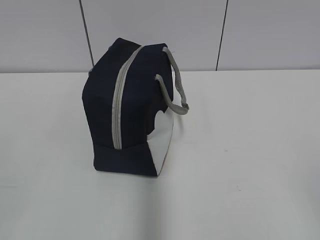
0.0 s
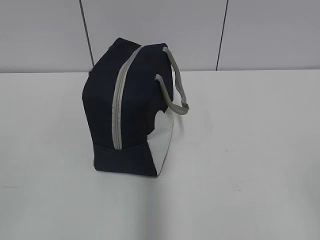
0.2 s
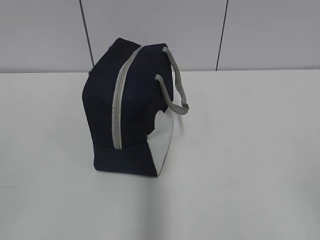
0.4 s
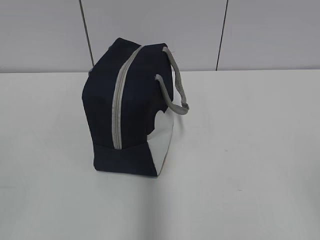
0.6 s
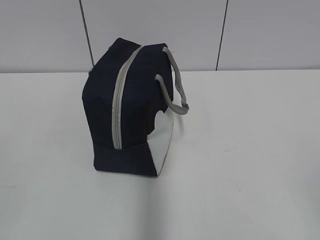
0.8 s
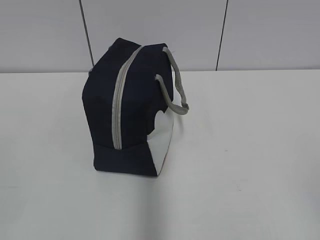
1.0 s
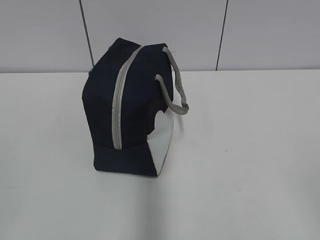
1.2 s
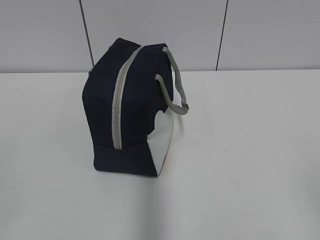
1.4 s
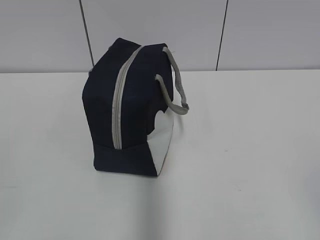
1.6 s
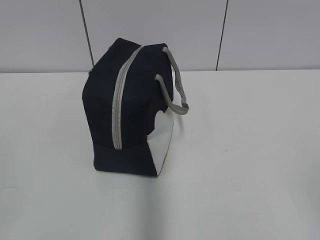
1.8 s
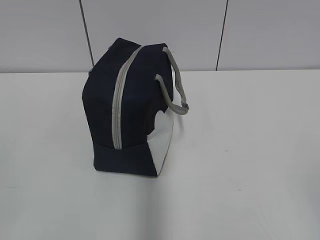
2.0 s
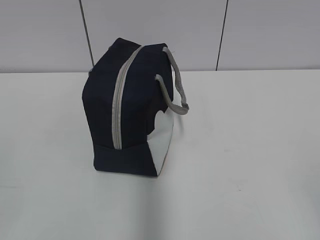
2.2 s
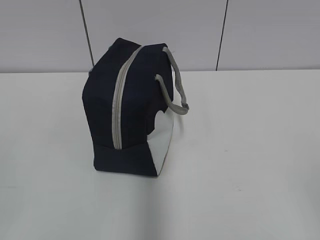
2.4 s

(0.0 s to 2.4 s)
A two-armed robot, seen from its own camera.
1.2 s - 2.4 s: The two grippers keep their place.

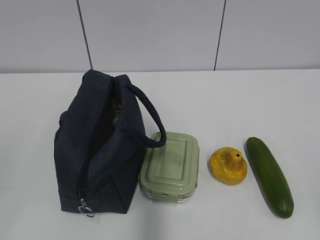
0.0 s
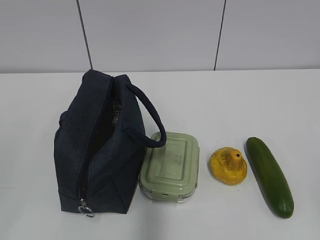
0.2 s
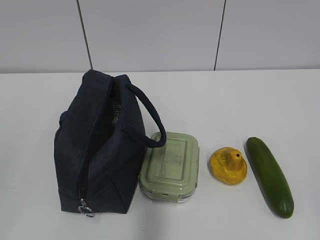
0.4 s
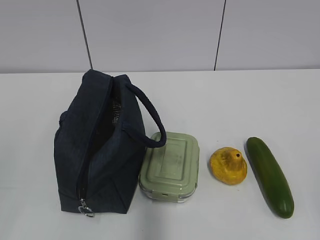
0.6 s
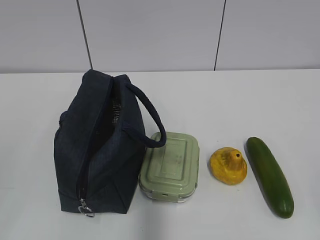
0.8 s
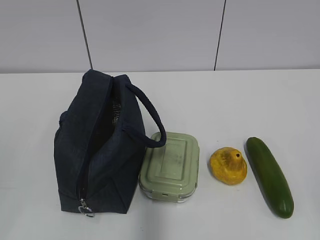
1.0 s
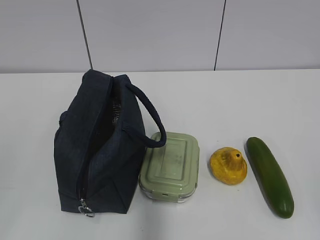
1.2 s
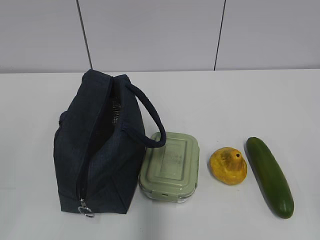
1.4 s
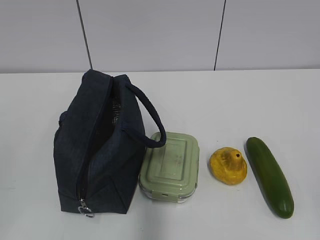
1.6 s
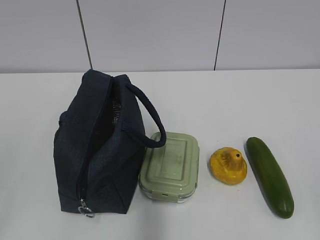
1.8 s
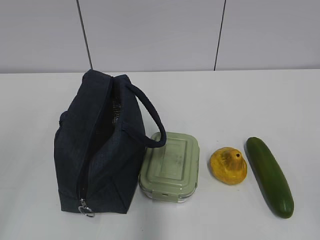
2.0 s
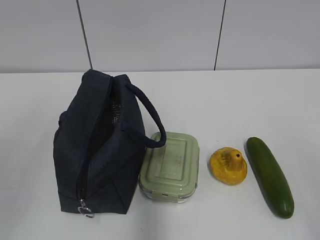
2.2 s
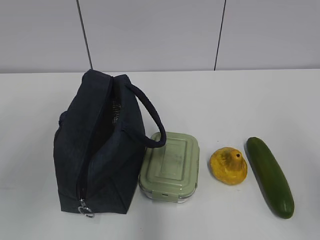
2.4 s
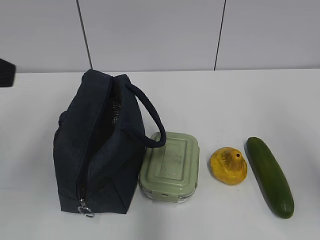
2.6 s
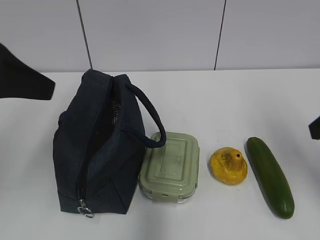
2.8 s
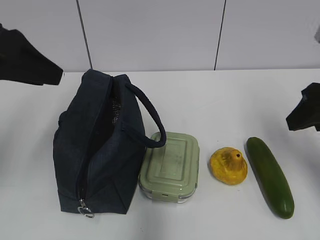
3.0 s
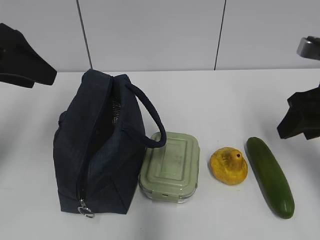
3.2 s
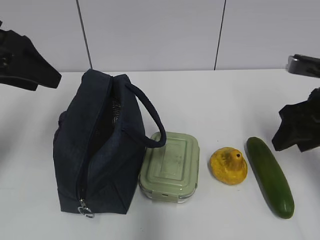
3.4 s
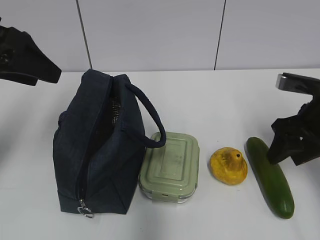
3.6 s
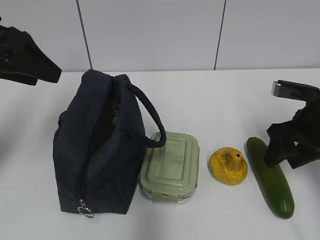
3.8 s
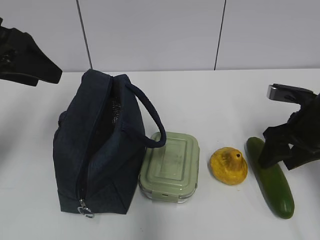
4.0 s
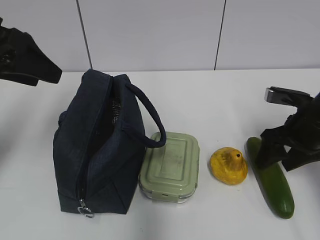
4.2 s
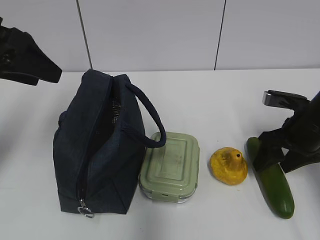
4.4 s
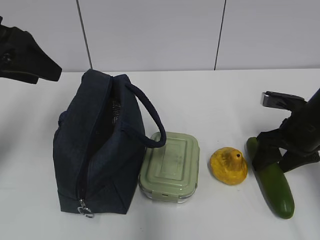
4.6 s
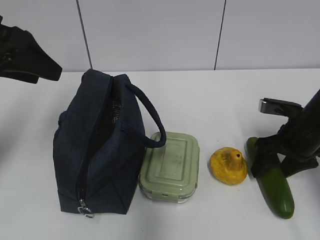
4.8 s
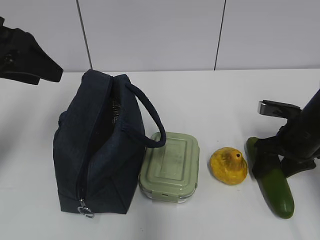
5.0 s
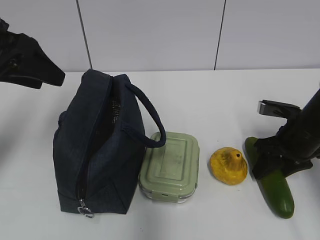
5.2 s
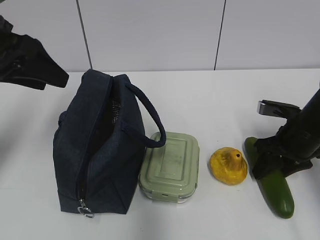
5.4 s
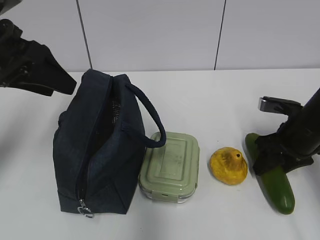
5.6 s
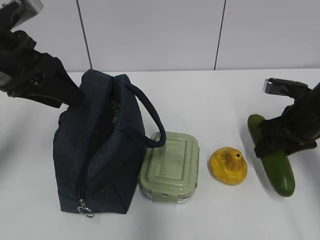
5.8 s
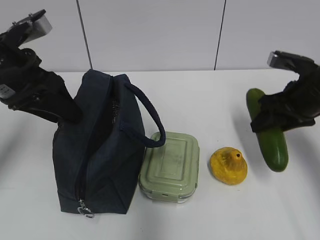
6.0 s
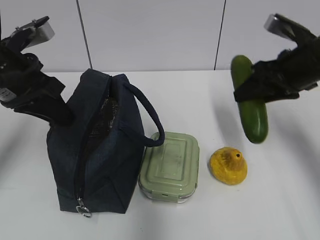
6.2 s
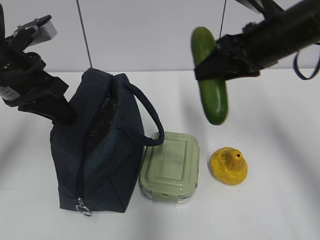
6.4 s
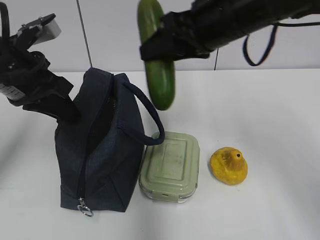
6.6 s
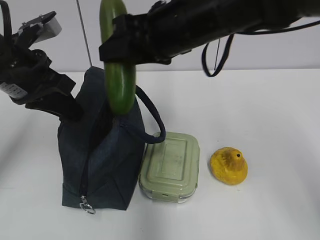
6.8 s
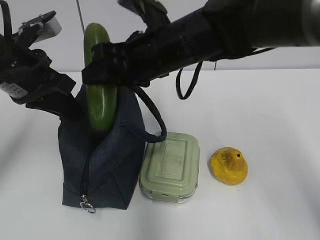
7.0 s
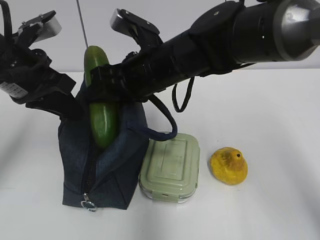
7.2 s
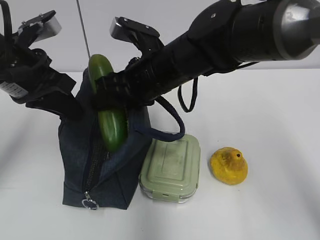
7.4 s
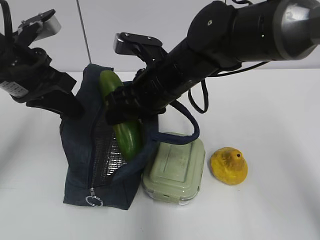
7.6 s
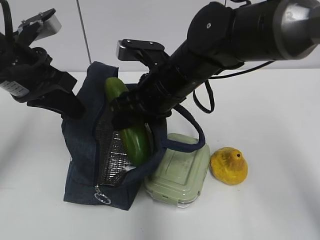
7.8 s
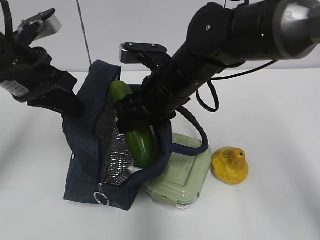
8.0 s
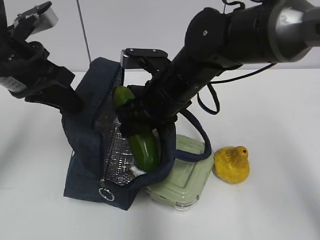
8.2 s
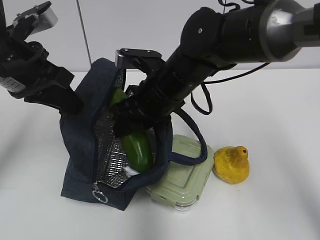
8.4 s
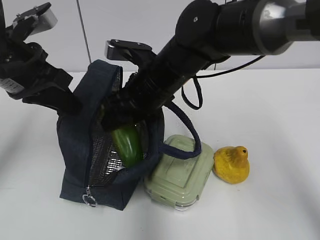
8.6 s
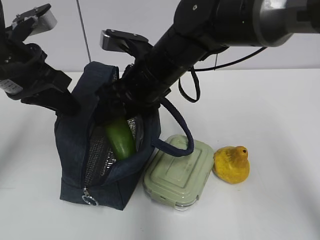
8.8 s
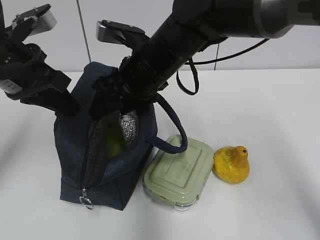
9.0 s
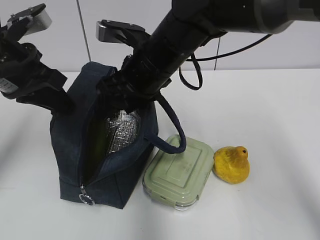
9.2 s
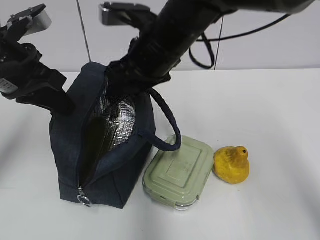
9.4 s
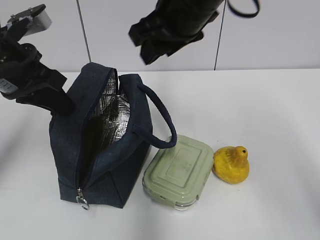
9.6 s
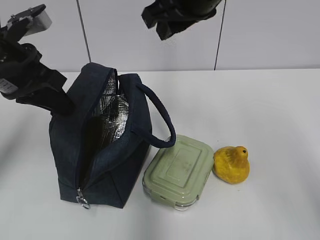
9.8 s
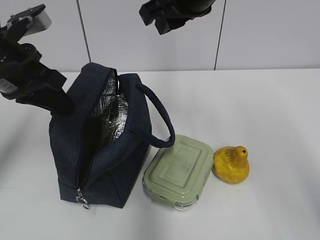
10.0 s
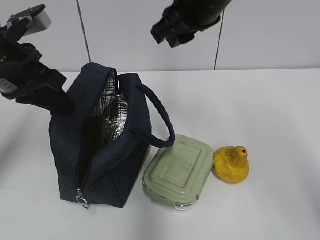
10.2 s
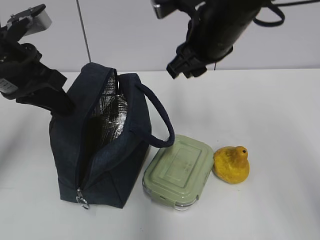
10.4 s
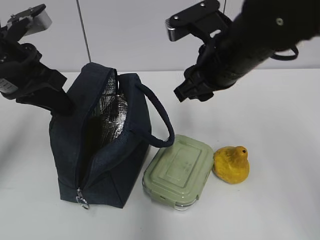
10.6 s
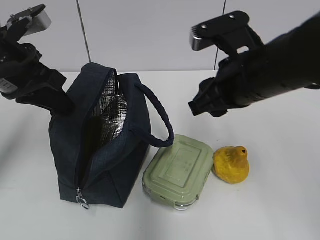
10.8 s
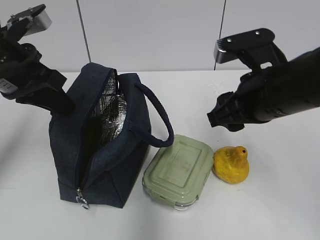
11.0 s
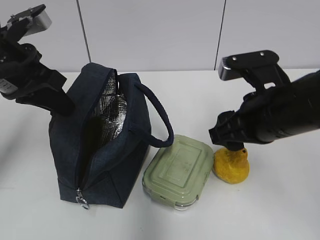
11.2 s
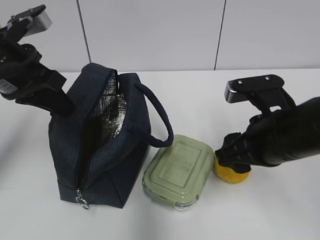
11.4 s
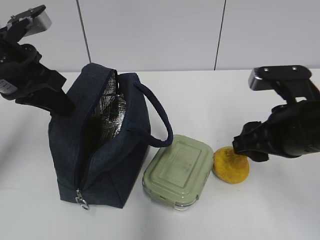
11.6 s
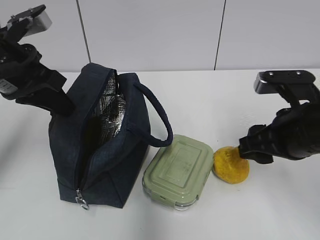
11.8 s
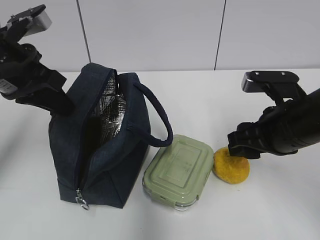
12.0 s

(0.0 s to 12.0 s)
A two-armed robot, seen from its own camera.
Step, 0.0 s - 5.0 s: Grab the cucumber with your right hand.
Step, 5.2 s - 6.8 s: Grab the lunch bag with your left hand.
Step, 7.0 s - 9.2 s: Place it into the bag with your right hand.
1.6 s - 3.0 s: The two grippers go some 25 cm forward.
3.0 s - 4.4 s: The right gripper goes about 15 cm downward and forward.
4.4 s - 6.0 s: The right gripper goes roughly 5 cm upward. The left gripper ends up approximately 5 cm from where it was.
6.0 s - 7.6 s: The right gripper moves to the left, roughly 25 cm; the left gripper closes.
9.0 s - 10.4 s: The right gripper heads to the right, covering approximately 10 cm, and closes its fingers.
10.4 s - 12.0 s: The right gripper goes approximately 15 cm downward, to the right and backward.

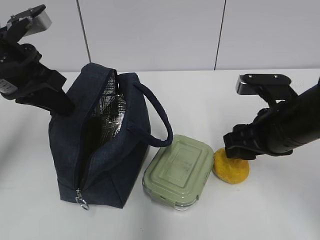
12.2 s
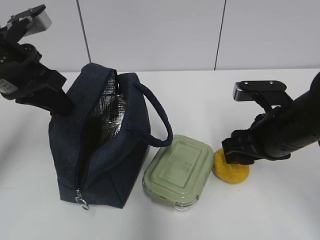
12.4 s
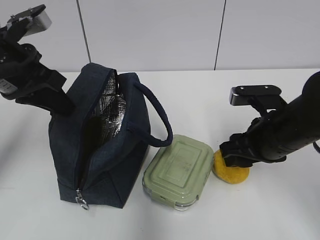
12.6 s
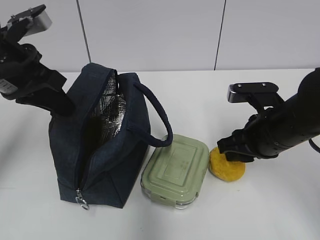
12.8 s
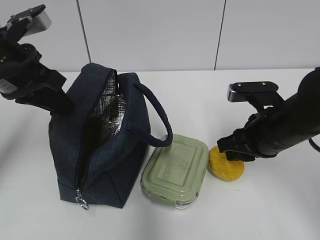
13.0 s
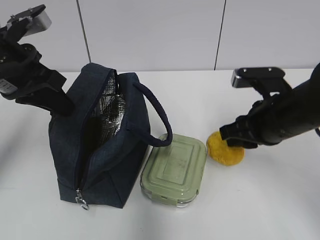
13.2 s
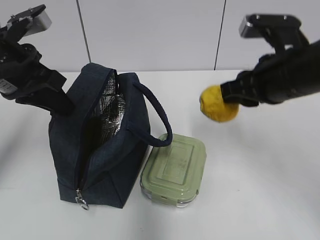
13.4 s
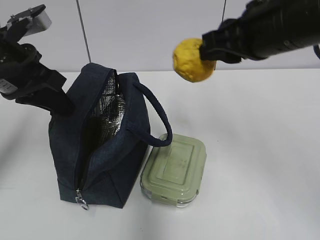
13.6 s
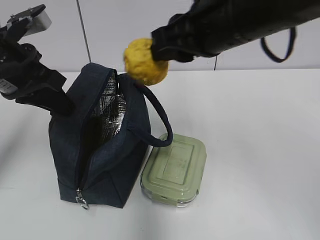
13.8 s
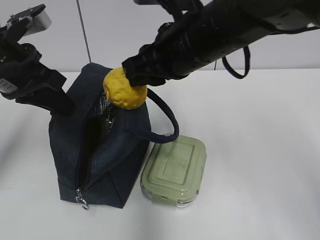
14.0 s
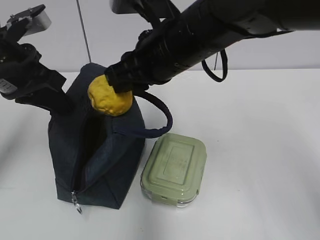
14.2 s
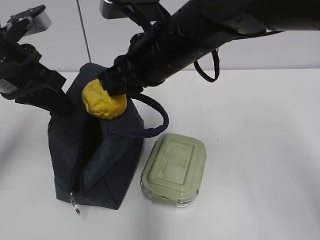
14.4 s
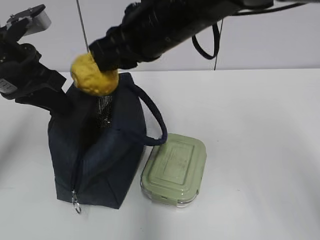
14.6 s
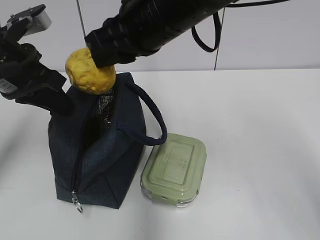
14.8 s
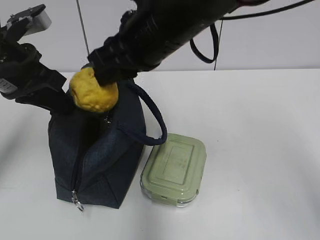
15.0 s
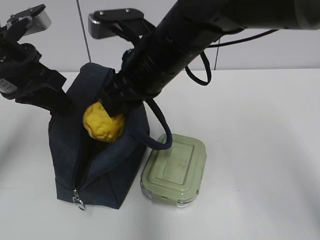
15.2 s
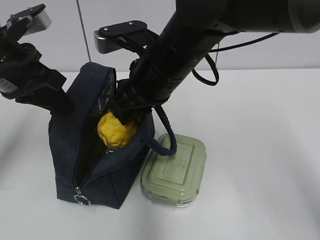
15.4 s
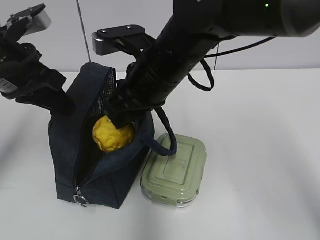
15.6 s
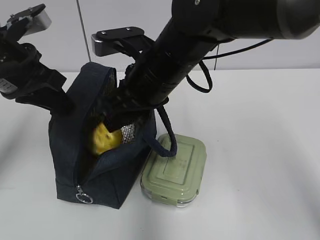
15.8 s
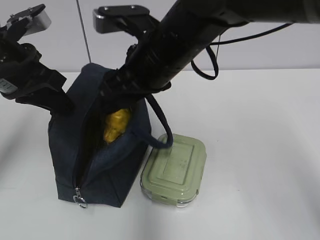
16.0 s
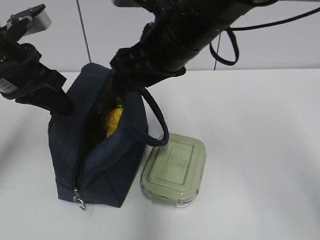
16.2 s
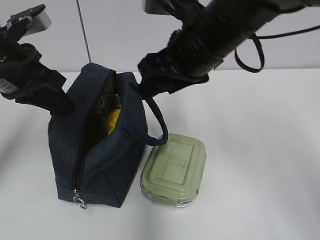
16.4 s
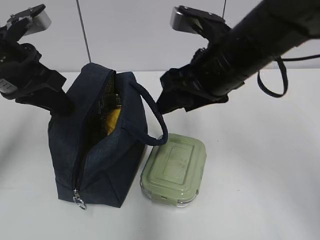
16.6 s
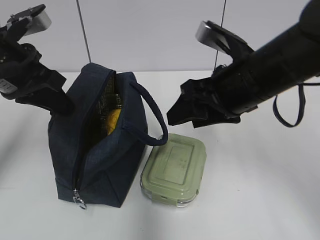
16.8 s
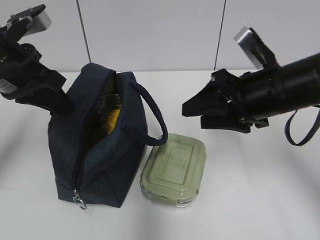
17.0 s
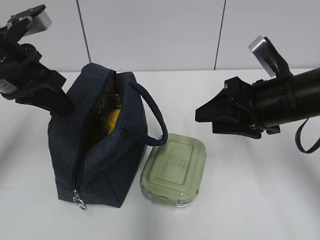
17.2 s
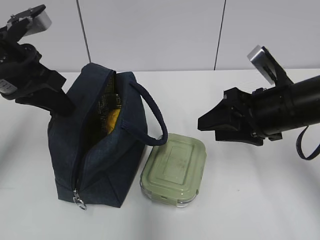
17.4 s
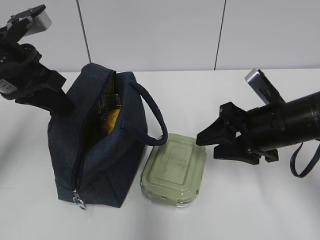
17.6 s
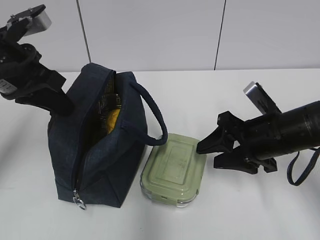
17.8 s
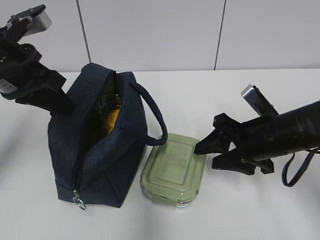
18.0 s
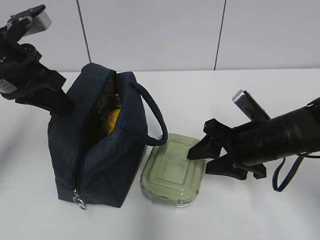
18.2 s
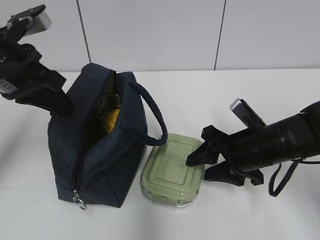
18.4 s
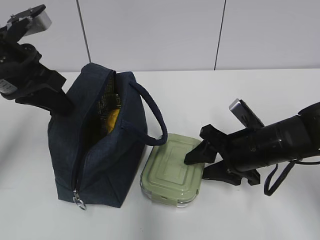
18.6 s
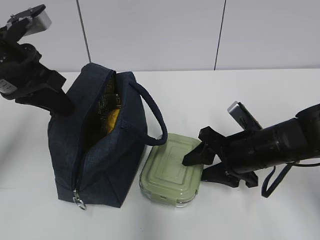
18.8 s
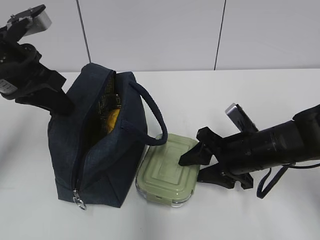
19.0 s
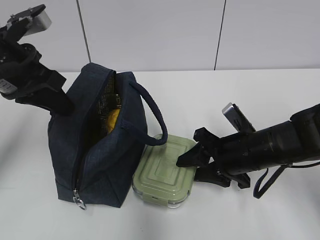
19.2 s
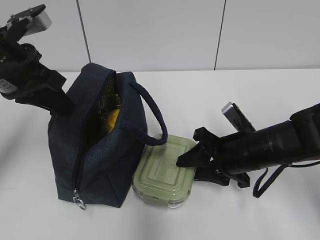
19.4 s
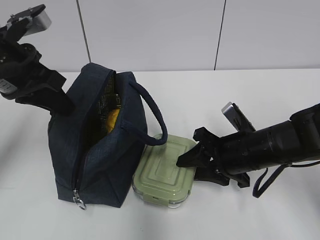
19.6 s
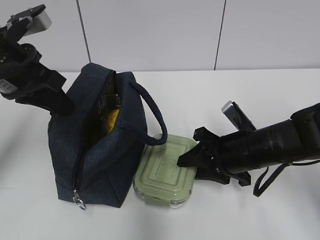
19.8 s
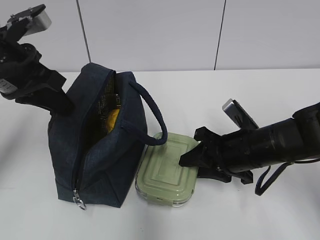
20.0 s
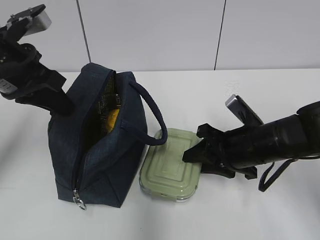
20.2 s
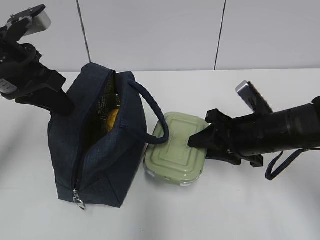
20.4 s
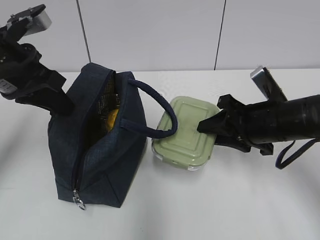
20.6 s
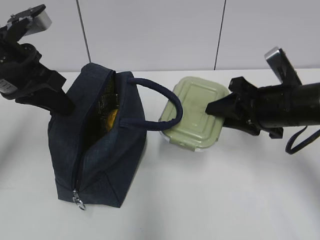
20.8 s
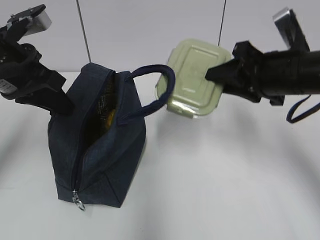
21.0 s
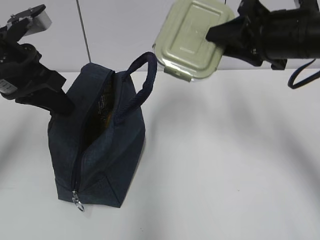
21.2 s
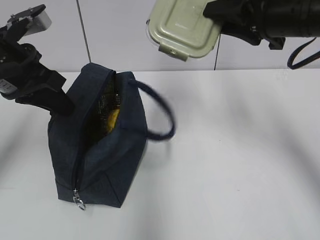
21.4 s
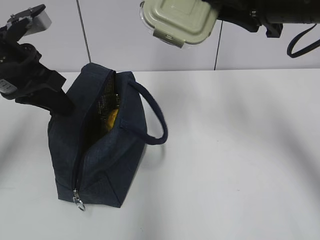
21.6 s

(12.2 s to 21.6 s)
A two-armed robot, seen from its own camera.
Step, 13.0 s - 16.0 s: Place it into the bag with your right hand.
Step, 16.2 s - 20.0 s: Grab the lunch box with your right hand.
12.2 s - 13.8 s: The right gripper moves upward and to the left, roughly 15 cm, and closes.
13.8 s - 15.4 s: The right gripper travels to the left and downward by about 10 cm.
15.4 s - 17.0 s: The right gripper heads to the right, covering about 15 cm, and opens.
17.0 s - 18.4 s: The right gripper is displaced downward by roughly 10 cm.
18.4 s - 20.0 s: The grippers move only a little.
20.0 s - 21.6 s: The right gripper heads upward, covering approximately 20 cm.
